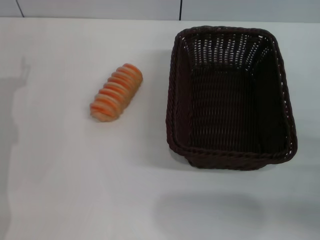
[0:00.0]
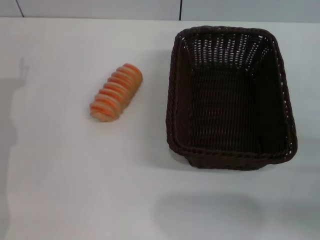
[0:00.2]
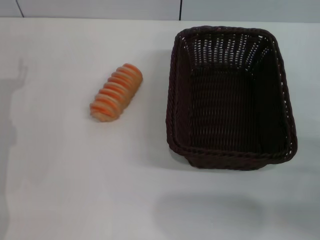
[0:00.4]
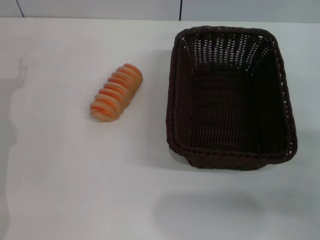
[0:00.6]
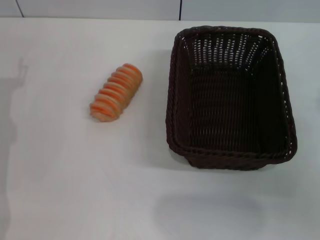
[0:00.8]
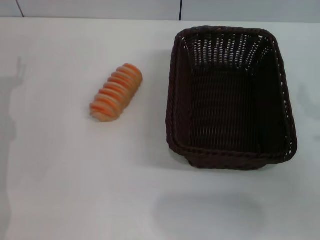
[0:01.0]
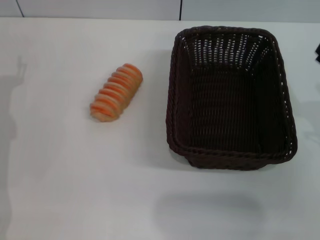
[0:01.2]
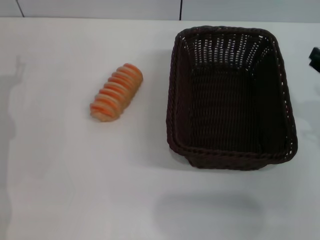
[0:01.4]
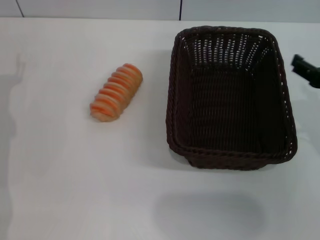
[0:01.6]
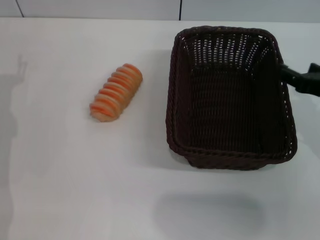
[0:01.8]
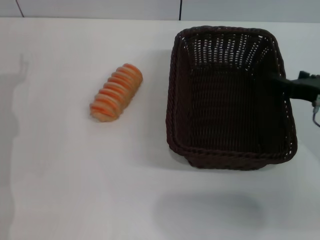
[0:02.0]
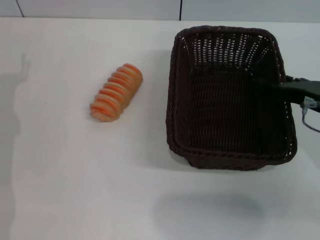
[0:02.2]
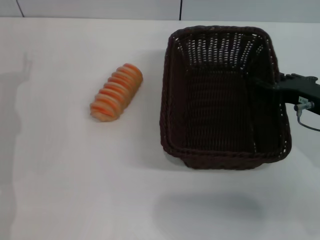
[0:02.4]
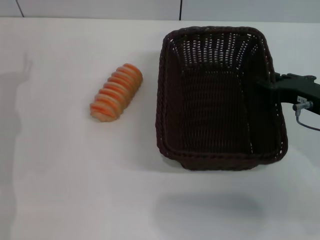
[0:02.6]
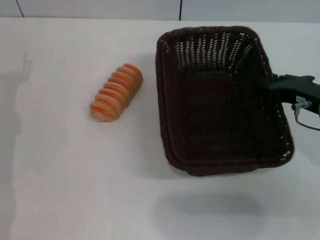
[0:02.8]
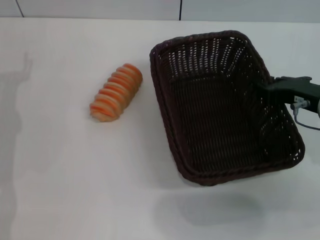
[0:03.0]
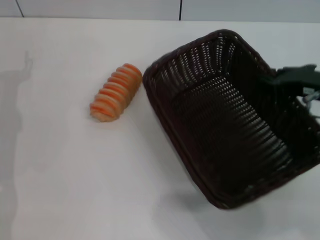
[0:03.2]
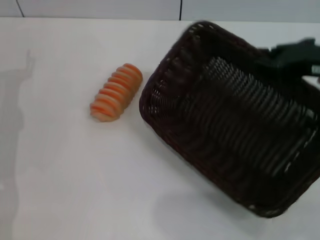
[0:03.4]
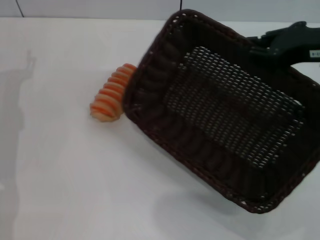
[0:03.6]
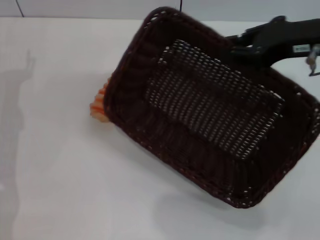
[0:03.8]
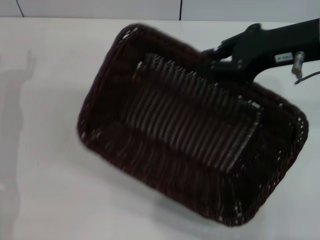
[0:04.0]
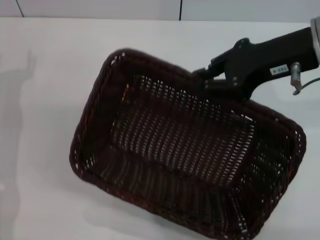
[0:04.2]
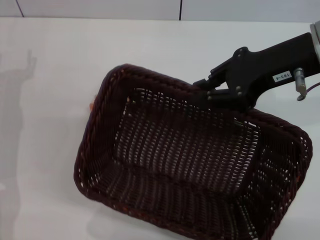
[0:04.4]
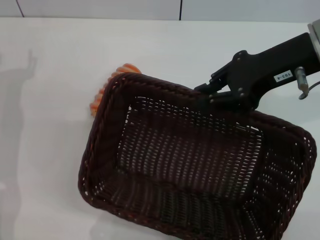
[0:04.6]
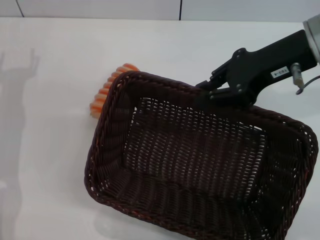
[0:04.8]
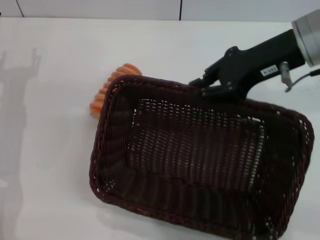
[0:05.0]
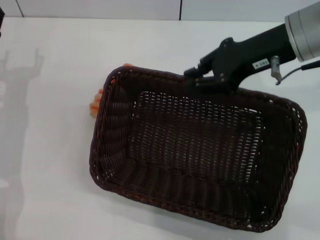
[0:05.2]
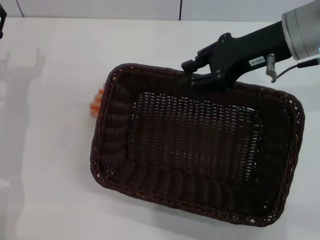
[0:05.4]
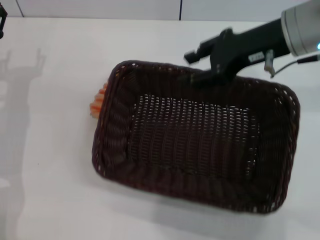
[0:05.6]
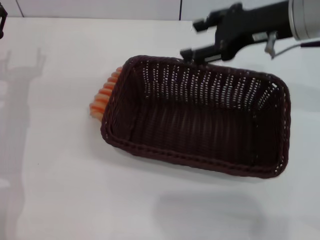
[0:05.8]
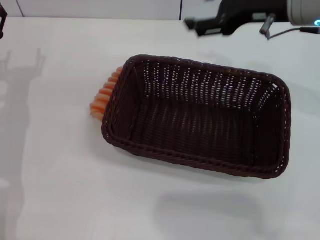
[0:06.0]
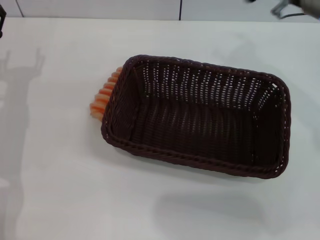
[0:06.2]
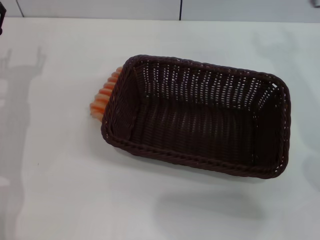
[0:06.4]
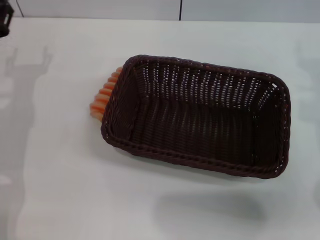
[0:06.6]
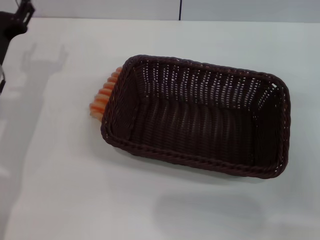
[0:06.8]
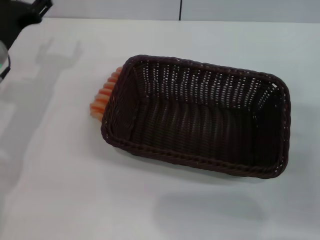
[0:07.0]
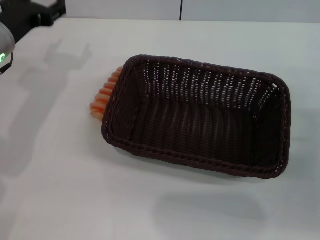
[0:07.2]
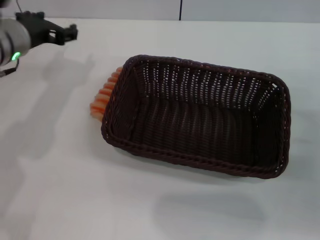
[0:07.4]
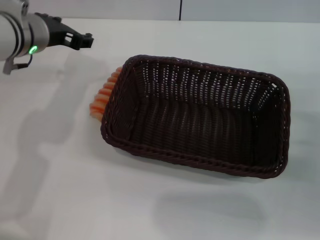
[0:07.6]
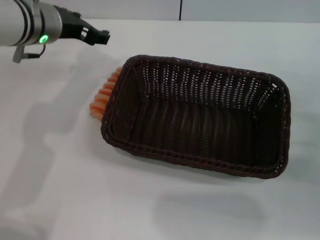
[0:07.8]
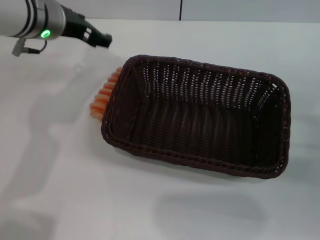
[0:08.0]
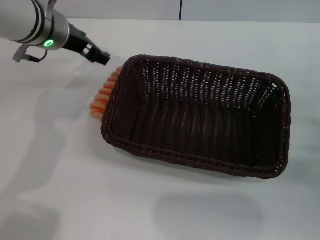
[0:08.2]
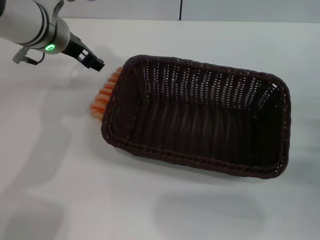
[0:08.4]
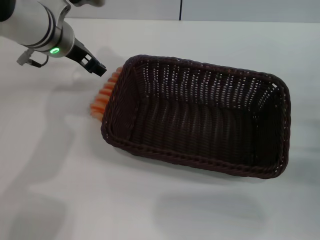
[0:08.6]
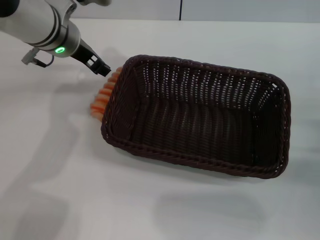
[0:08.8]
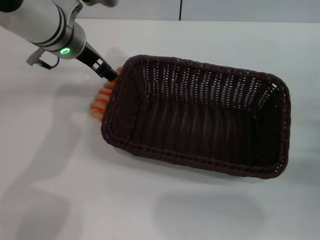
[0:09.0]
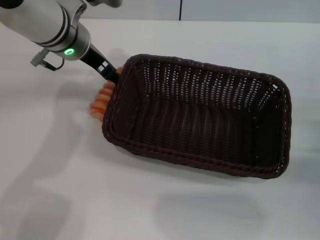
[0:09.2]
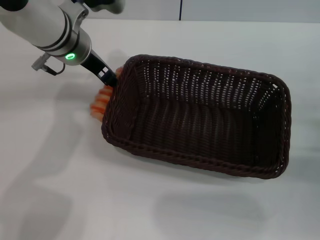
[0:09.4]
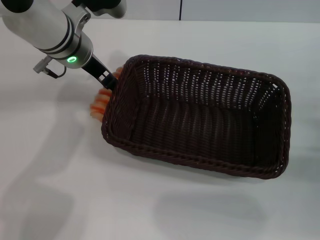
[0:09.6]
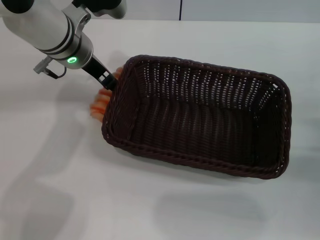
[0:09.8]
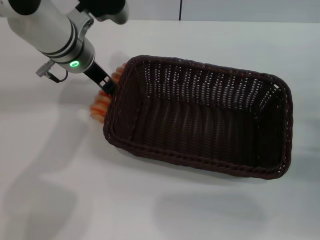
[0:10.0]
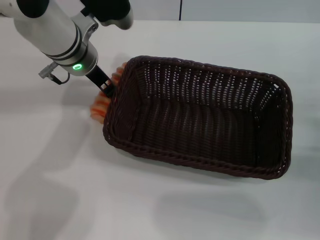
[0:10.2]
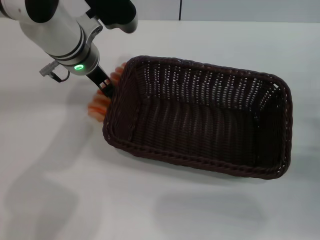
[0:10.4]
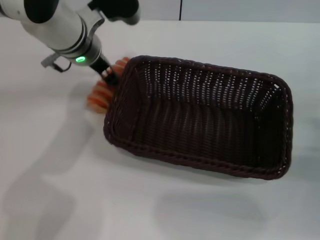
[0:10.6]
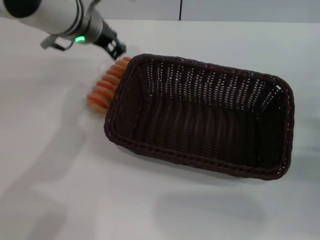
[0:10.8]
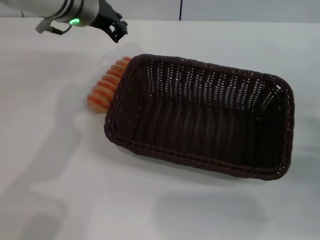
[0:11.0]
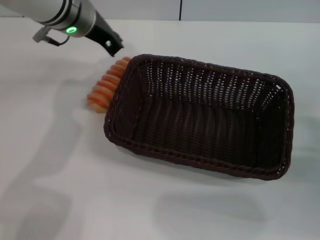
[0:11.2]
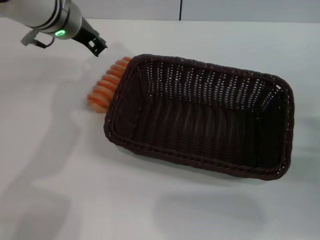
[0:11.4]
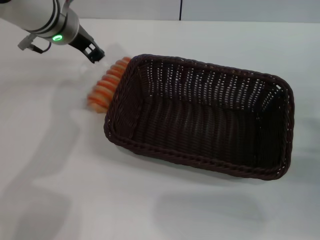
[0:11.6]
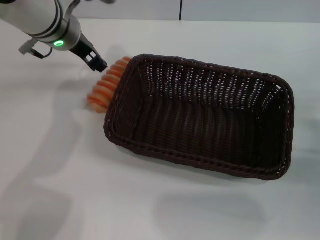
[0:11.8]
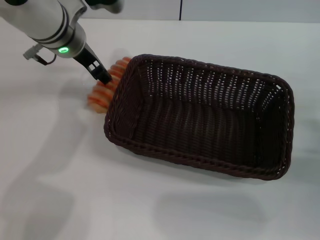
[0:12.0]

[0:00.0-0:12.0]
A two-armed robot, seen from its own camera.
Step, 0:00.0 to 0:03.4: Pick up the dark basket with the right gripper.
Step, 0:03.6 to 0:05.8: Place the dark basket in the center of view with the right gripper.
0:00.0 to 0:01.6: The right gripper is displaced upward and forward by some 10 cm.
0:01.6 to 0:03.0: The right gripper shifts by some 5 cm, and closes its fingers.
0:03.0 to 0:04.4: The right gripper shifts roughly 10 cm upward.
0:04.4 to 0:06.0: The right gripper is displaced forward by about 5 cm, and opens up.
0:06.0 to 0:07.6: The left gripper goes some 15 cm upward, to the right and forward. The right gripper travels downward, backward and to the right by approximately 25 cm.
0:07.6 to 0:09.0: The left gripper moves approximately 5 cm.
0:09.0 to 0:10.4: The grippers make only small movements.
0:10.4 to 0:12.0: The left gripper closes, then reopens.

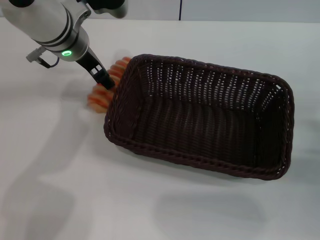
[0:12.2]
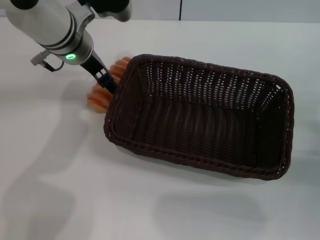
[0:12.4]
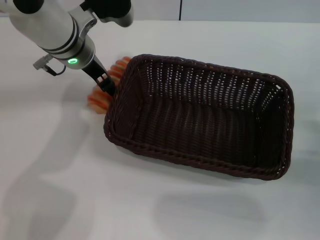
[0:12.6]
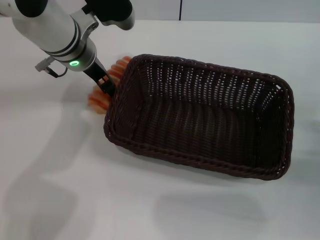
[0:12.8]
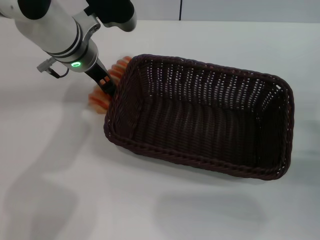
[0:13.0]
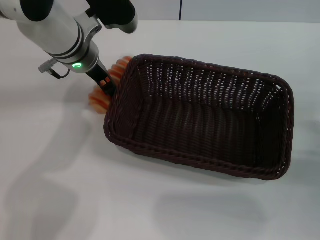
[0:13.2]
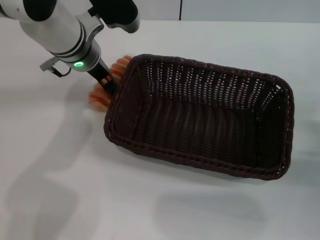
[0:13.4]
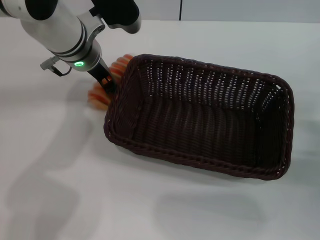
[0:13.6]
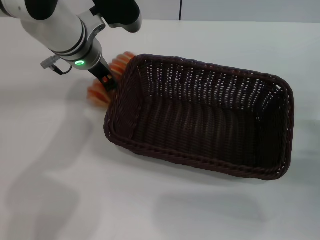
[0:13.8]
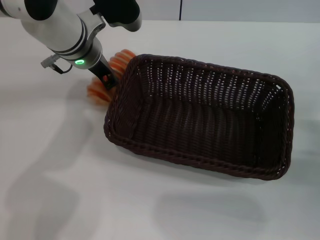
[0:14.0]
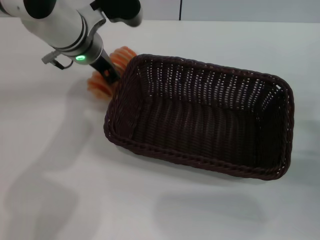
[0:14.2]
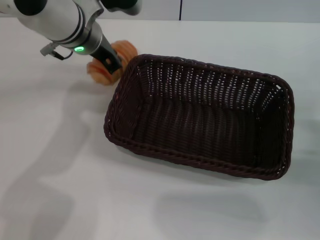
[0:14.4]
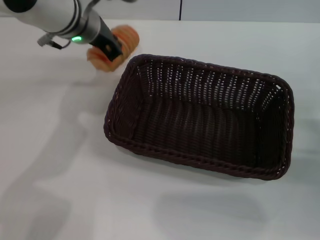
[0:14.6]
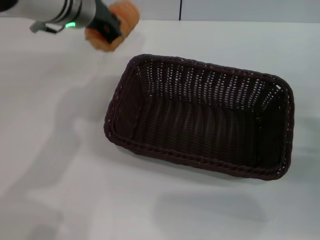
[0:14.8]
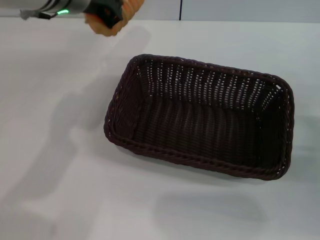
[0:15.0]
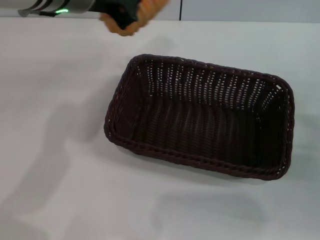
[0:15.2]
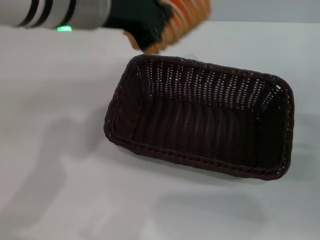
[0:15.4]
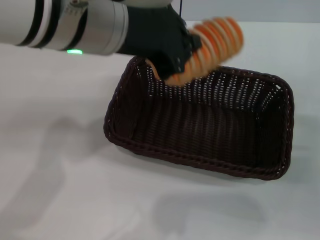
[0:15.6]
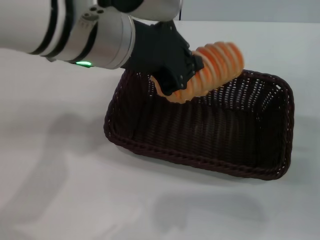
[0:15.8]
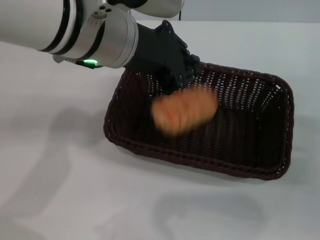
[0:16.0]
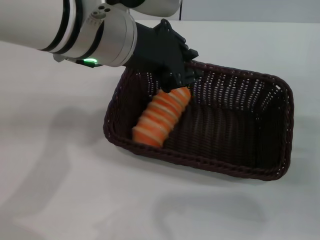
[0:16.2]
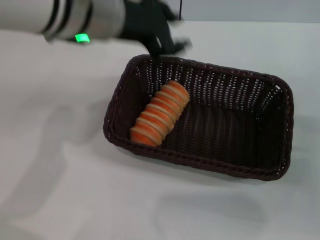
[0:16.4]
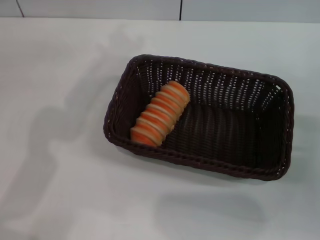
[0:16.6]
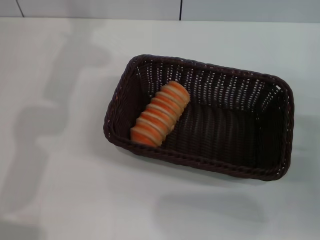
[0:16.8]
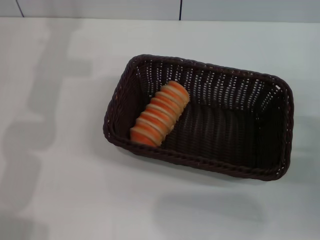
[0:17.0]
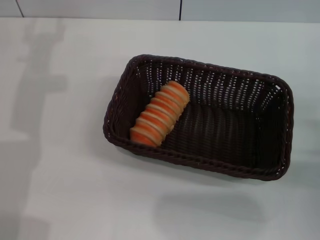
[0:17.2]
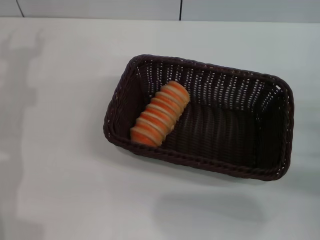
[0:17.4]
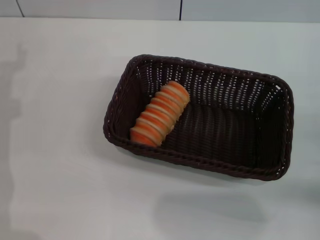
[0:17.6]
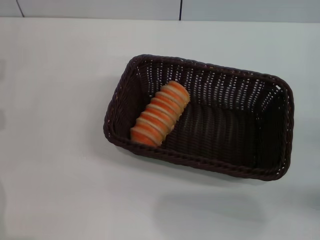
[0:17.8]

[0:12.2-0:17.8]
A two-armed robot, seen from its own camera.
Step, 0:12.2 to 0:14.8: Pick up the long bread with the left gripper.
Step, 0:15.0 to 0:16.2: Place the long bread into the dark basket with the left gripper.
0:12.2 to 0:13.6: There are only small adjustments of the grippers.
0:13.6 to 0:15.0: The left gripper shifts about 10 cm upward, and closes up.
0:15.0 to 0:16.4: The left gripper travels backward by approximately 5 cm.
0:16.4 to 0:17.8: The left gripper shifts roughly 30 cm to the left and downward, and opens up. The right gripper moves approximately 5 cm.
